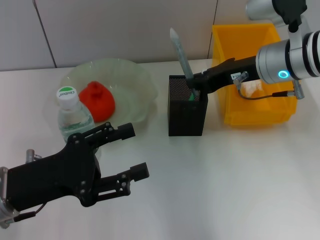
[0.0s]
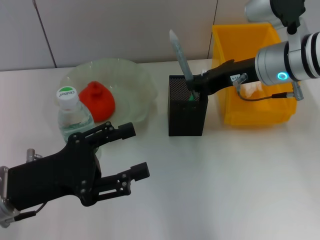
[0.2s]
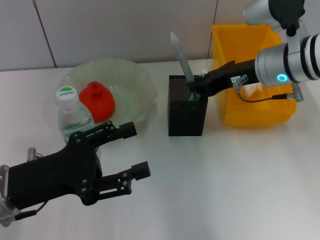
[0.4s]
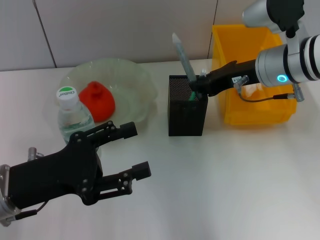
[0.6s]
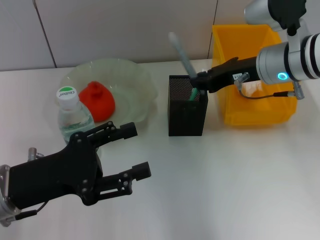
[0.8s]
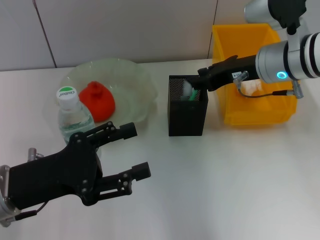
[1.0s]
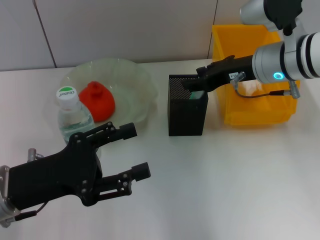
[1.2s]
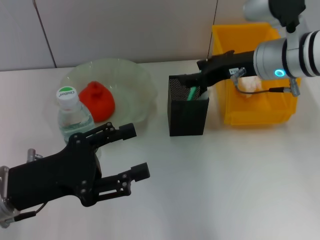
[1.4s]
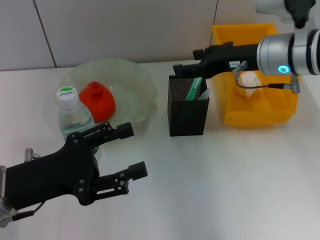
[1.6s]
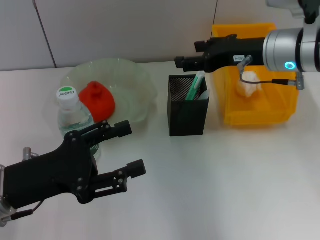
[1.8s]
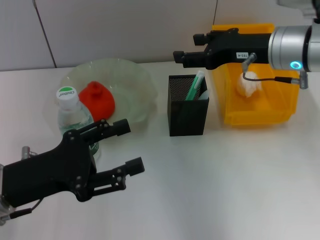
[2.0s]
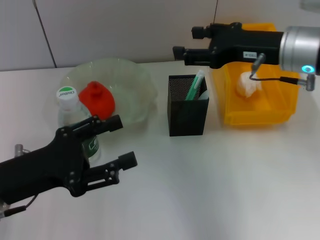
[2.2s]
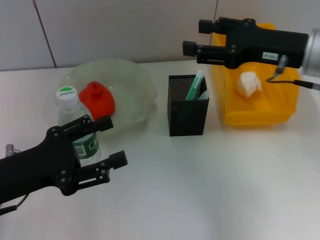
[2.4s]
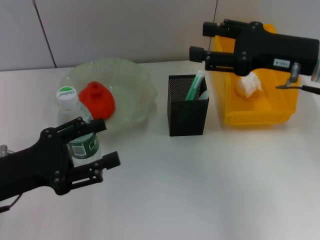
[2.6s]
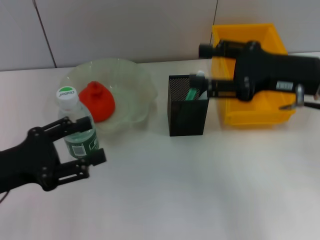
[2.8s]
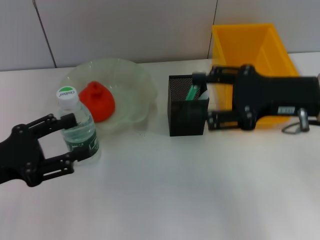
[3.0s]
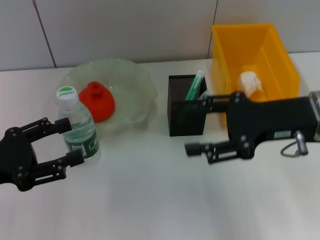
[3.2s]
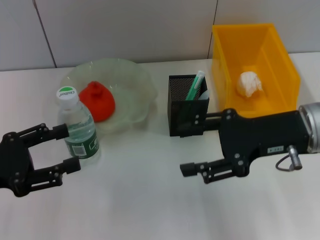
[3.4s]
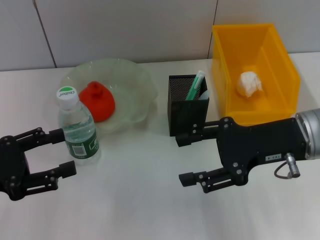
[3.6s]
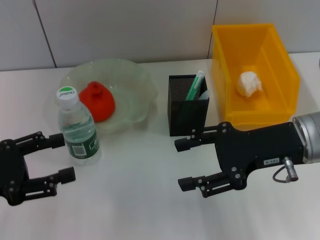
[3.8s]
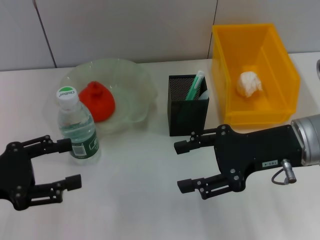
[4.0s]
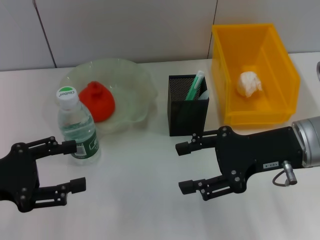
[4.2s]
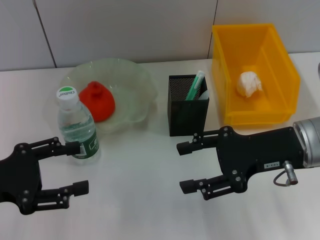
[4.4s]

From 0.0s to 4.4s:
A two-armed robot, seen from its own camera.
From 0.0s to 1.4s: The right gripper opens its fingers.
From 1.4s to 3.0s: The right gripper goes about 10 cm backward; the left gripper is displaced to the left by approximately 5 cm.
